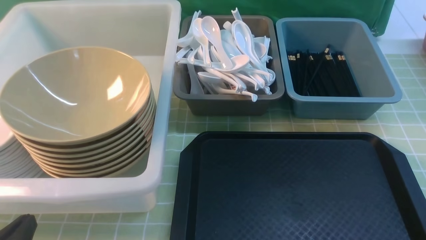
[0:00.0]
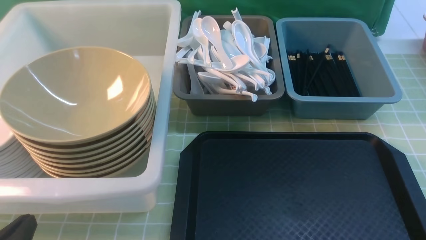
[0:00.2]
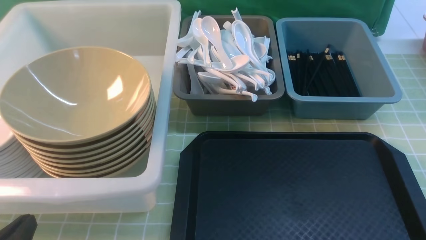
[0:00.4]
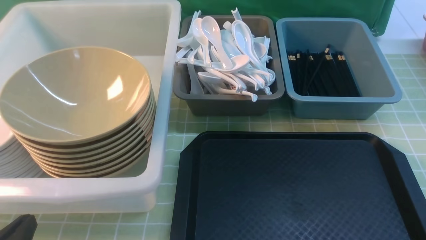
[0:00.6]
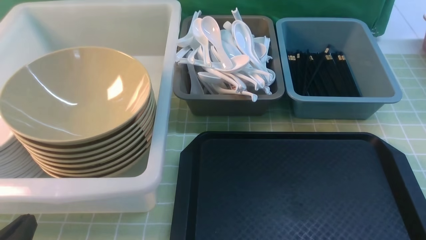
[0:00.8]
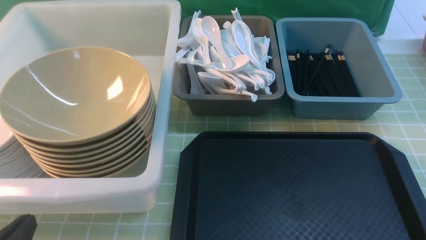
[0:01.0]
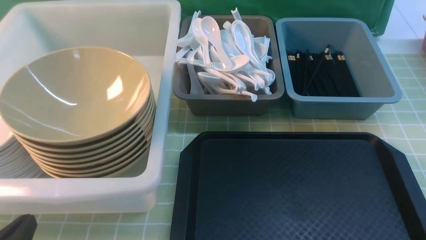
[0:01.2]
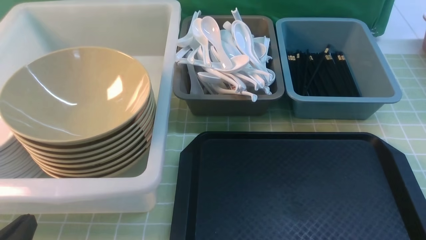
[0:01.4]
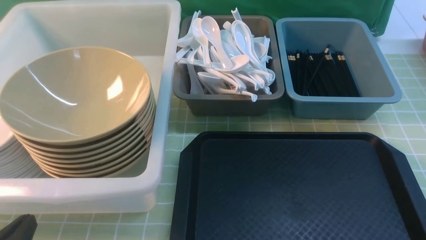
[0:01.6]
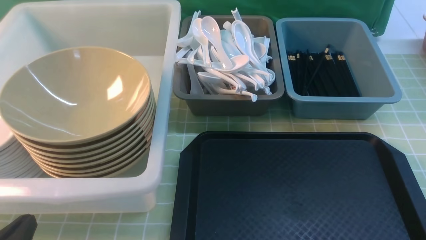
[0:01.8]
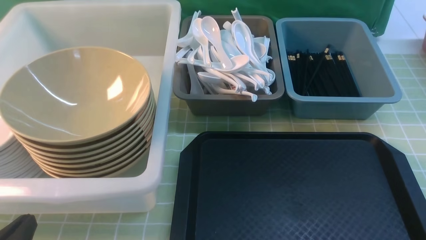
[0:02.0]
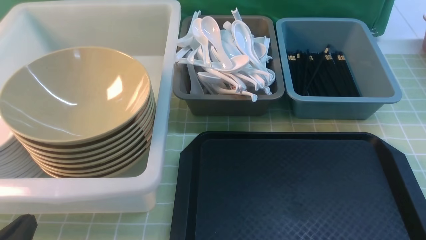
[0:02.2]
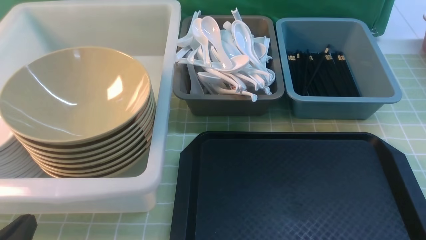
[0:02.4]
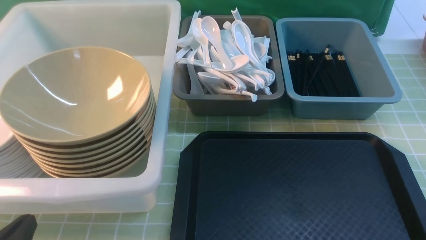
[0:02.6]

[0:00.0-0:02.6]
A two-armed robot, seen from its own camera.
Task of the whole recording: on green table put chopsticks spoon bowls plates into blue grey white boxes.
0:00.0 to 0:02.6: Neither gripper changes place.
